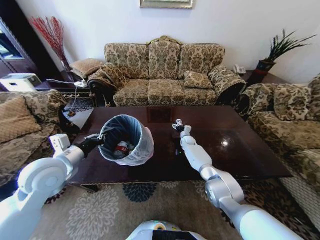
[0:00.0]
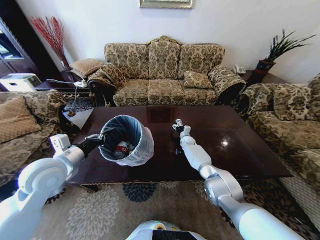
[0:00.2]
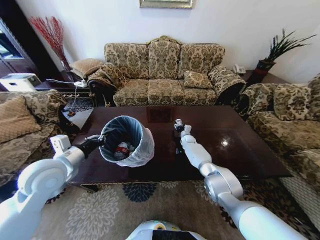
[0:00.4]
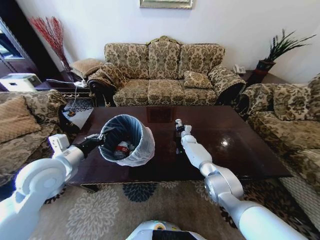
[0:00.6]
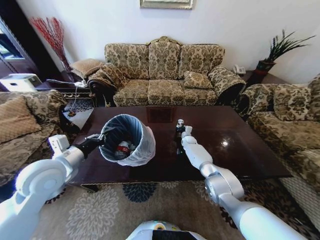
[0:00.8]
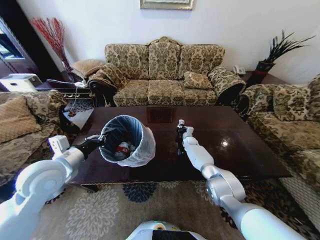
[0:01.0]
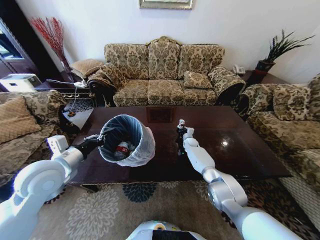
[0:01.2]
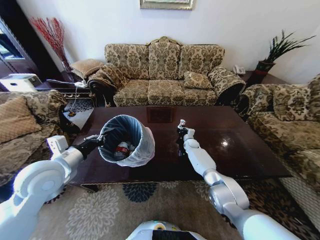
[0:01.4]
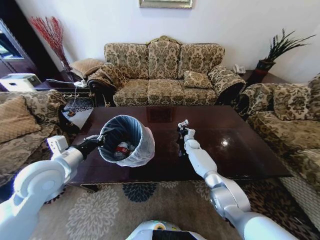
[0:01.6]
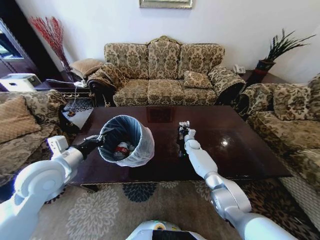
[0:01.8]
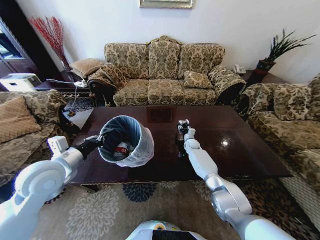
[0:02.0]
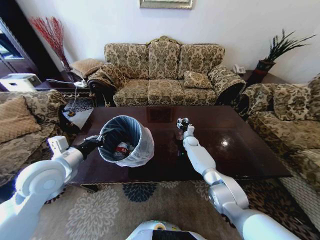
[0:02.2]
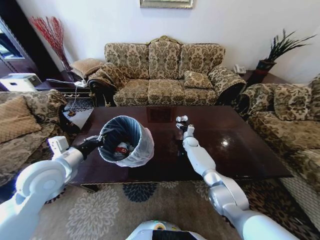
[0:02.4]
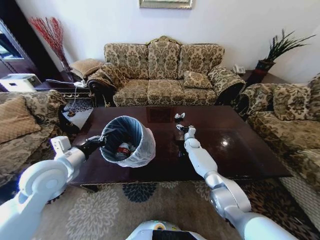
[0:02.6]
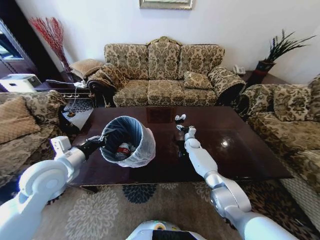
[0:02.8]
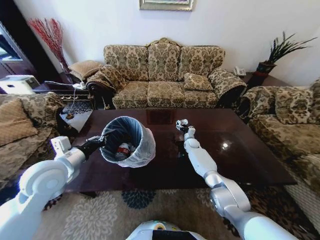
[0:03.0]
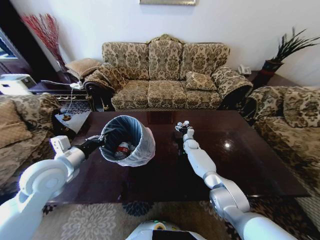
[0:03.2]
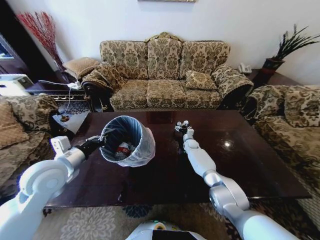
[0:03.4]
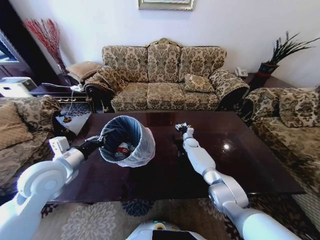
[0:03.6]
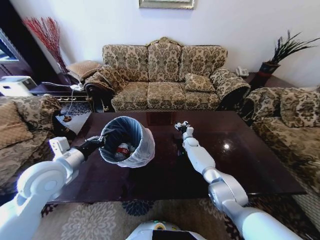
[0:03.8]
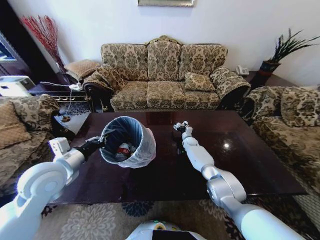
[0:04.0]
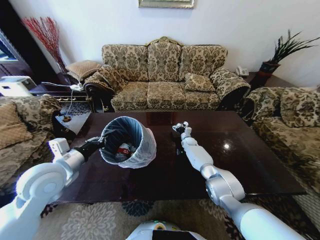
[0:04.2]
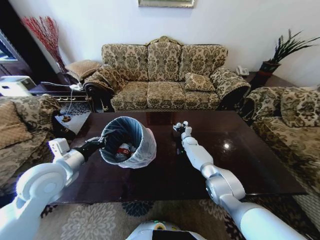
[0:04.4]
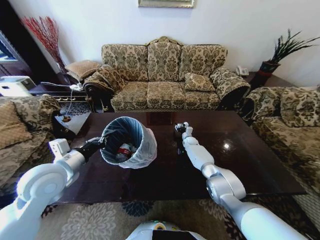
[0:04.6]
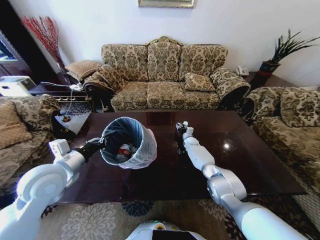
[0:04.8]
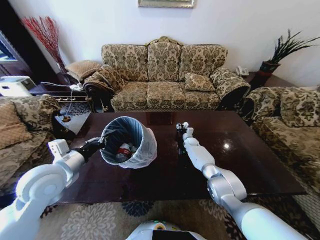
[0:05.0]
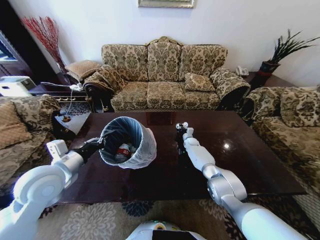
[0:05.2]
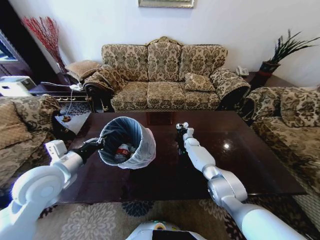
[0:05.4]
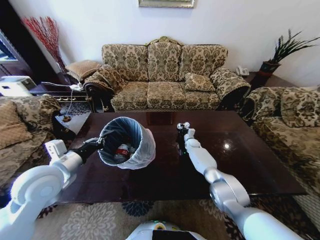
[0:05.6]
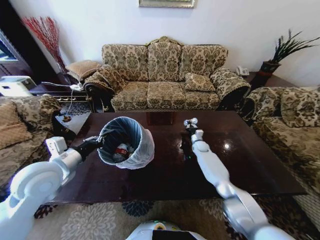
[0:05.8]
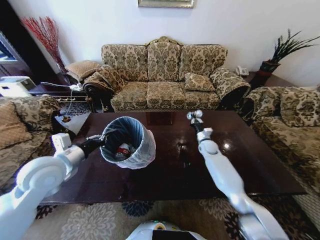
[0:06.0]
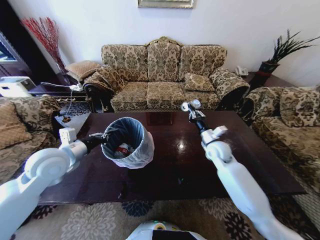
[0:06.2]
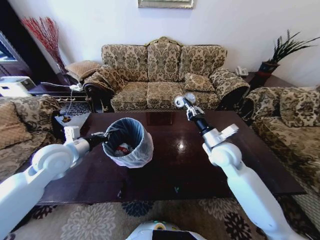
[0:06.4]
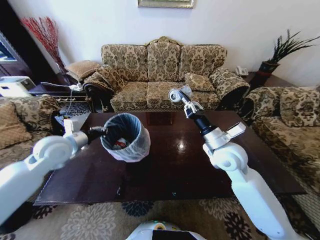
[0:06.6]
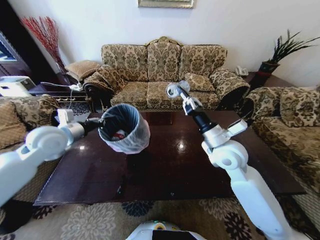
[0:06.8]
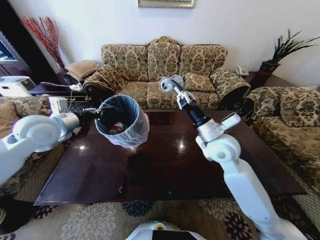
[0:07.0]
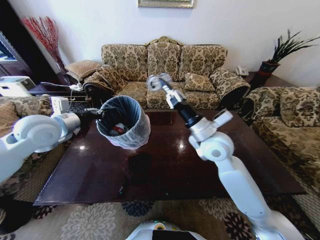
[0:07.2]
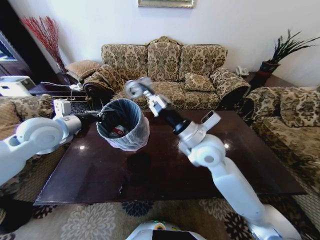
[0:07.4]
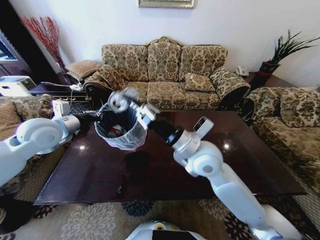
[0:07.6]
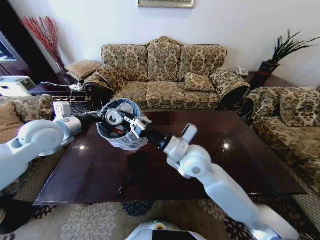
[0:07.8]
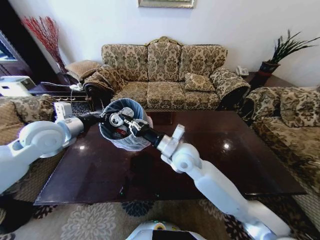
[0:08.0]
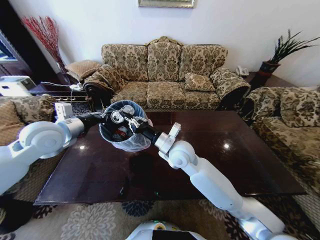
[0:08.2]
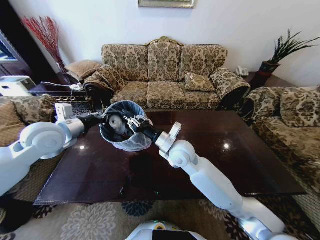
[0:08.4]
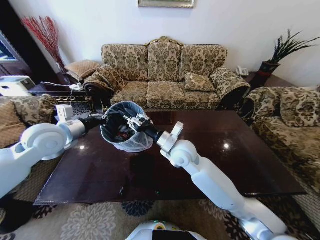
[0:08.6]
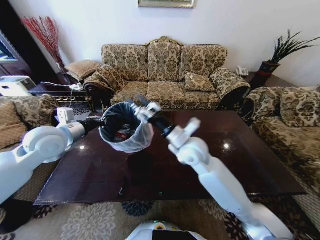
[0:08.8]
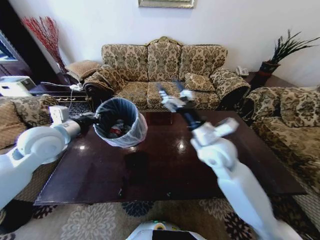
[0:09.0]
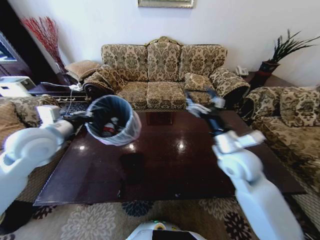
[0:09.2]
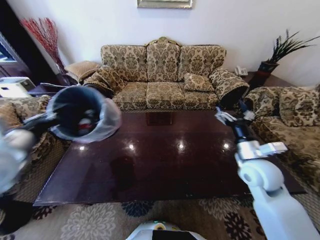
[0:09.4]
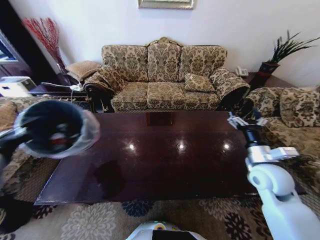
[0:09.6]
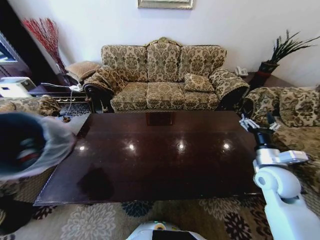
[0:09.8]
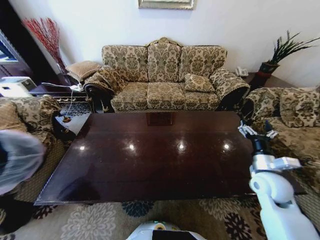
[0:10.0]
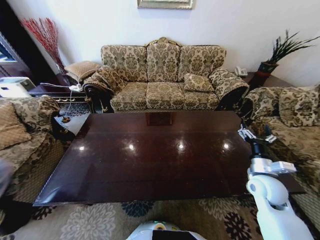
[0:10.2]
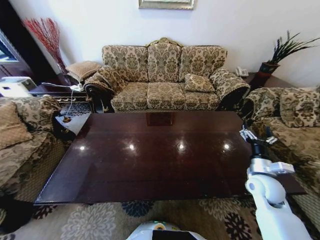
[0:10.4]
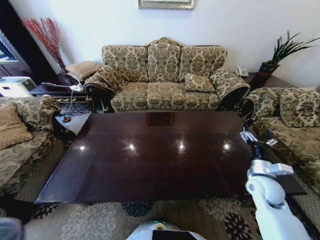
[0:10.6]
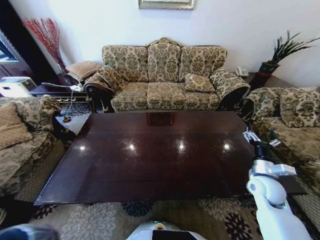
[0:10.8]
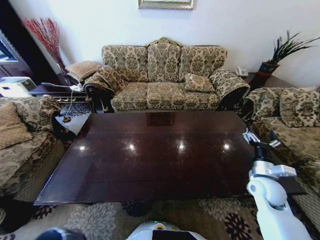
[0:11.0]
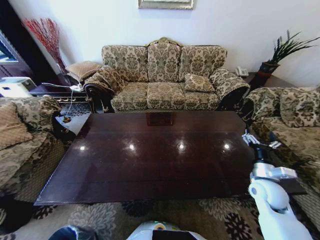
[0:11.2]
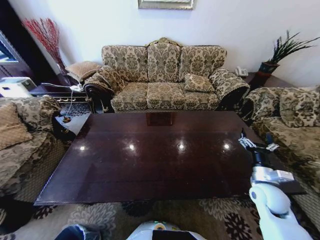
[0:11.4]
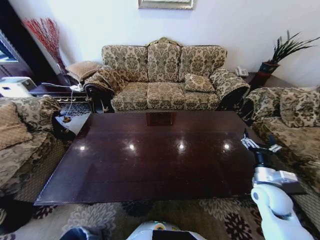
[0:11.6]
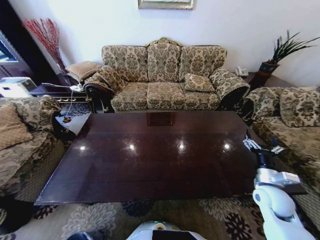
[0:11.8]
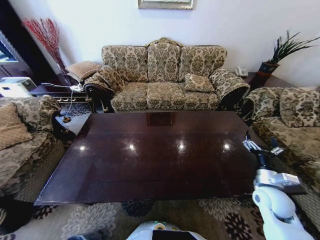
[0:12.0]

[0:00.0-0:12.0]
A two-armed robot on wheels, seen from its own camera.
Task of the whole recording: Move to the front of the table and place the trash on the table into the trash bin.
0:00.0 to 0:01.6: The right gripper closes up.
0:01.6 to 0:03.0: The right gripper opens.
0:04.4 to 0:06.0: The right gripper heads backward, to the right and upward, covering about 15 cm, and closes.
0:06.0 to 0:07.6: The right gripper heads upward, backward and to the left, covering some 35 cm. The left gripper moves forward and upward, roughly 10 cm.
0:07.6 to 0:09.0: The right gripper heads to the right, covering some 5 cm, and opens.
0:09.0 to 0:10.4: The left gripper heads backward, to the left and downward, covering approximately 40 cm; the right gripper travels to the right and downward by about 25 cm.
0:10.4 to 0:12.0: The left gripper travels downward by about 40 cm, and opens its fingers.

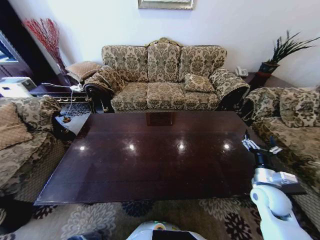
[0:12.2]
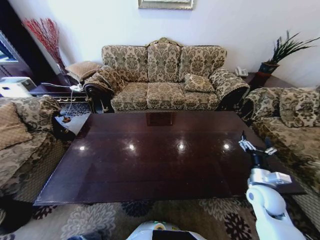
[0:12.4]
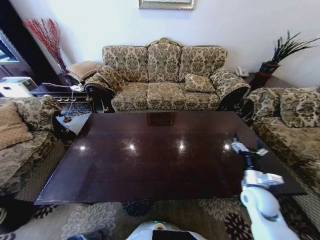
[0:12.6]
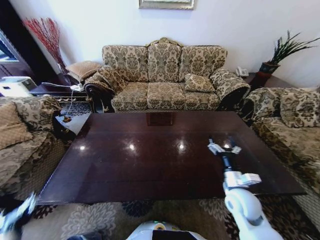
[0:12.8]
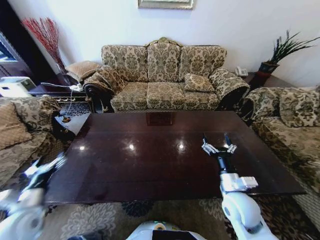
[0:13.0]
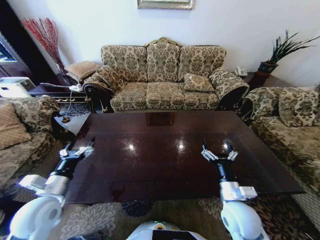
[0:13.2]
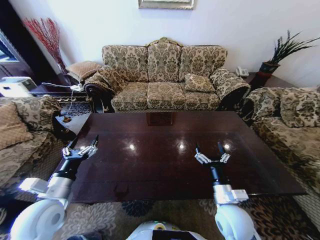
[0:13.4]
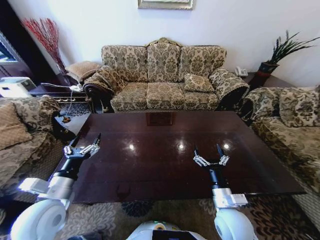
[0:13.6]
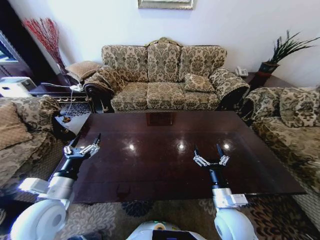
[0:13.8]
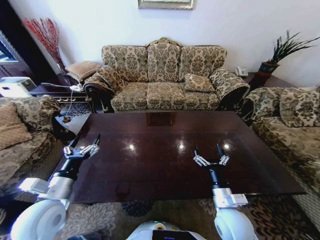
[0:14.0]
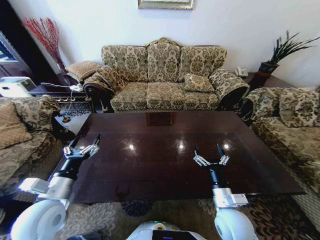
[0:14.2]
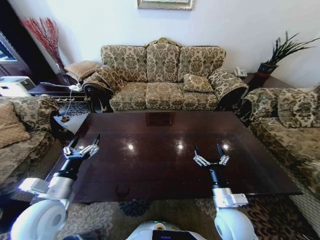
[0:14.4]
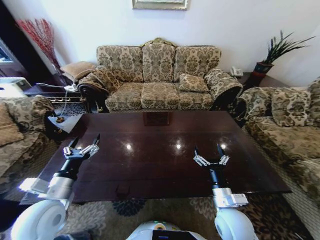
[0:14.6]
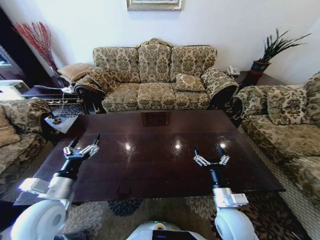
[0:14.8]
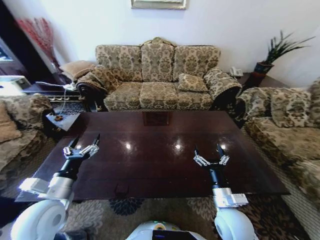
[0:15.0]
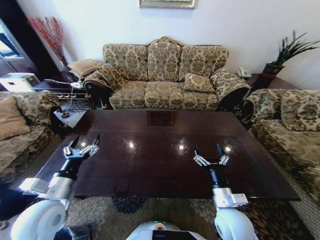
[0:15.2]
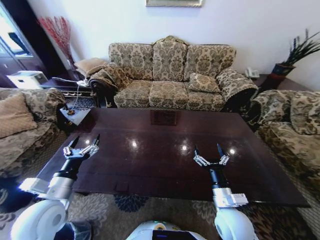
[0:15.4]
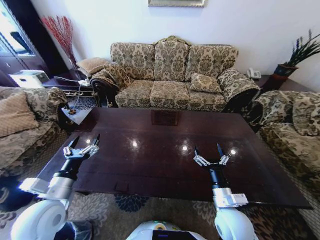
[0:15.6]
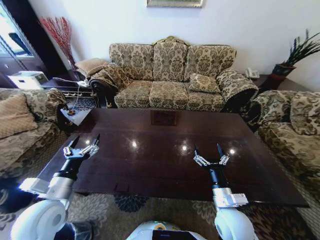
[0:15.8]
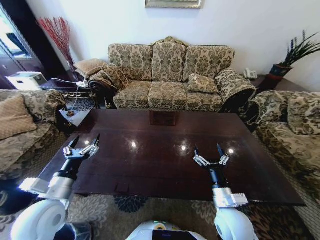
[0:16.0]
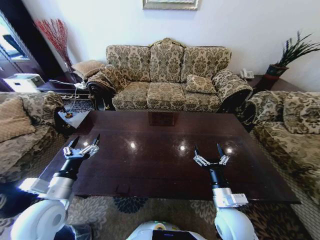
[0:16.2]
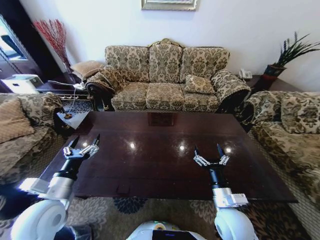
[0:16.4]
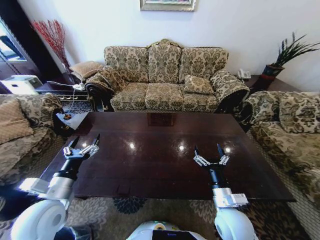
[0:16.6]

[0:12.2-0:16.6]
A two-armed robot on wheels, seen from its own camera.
Task of the whole recording: Move to the front of the table and place the trash on the table into the trash bin.
0:12.2 to 0:13.6: The left gripper goes approximately 50 cm upward and forward. Meanwhile the right gripper shifts some 20 cm to the left and backward.
0:15.2 to 0:16.6: The two grippers keep their place.
